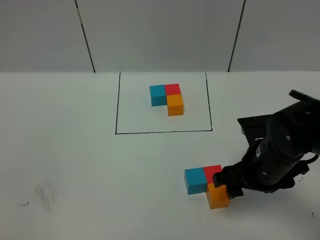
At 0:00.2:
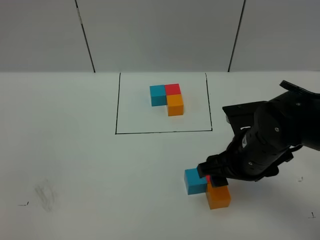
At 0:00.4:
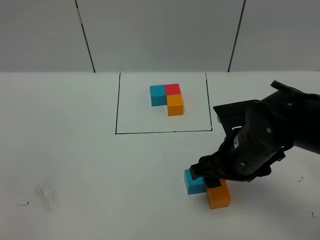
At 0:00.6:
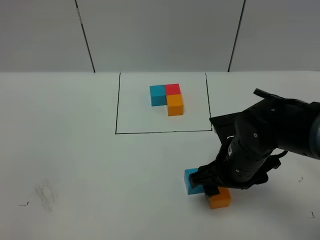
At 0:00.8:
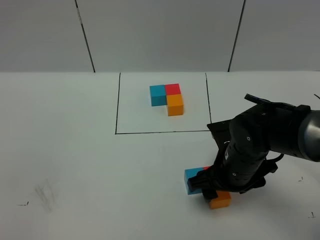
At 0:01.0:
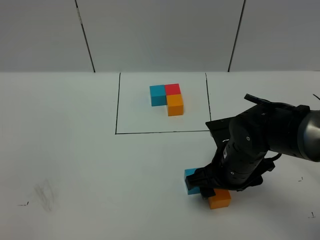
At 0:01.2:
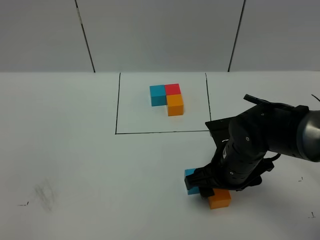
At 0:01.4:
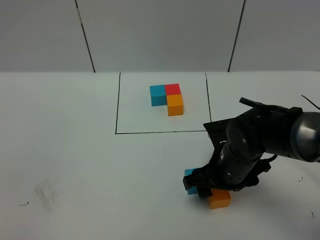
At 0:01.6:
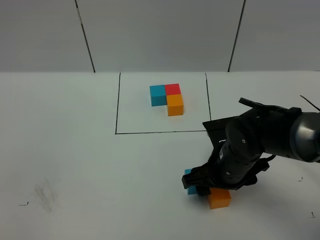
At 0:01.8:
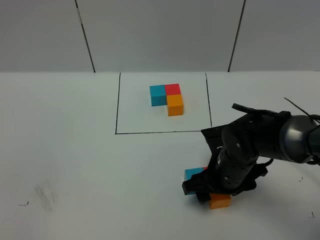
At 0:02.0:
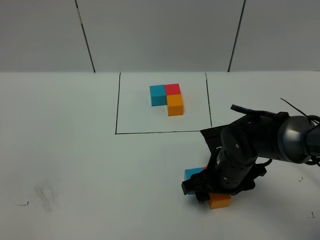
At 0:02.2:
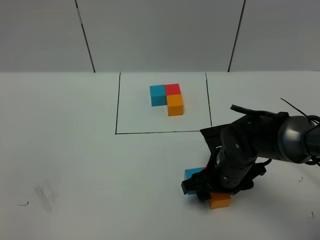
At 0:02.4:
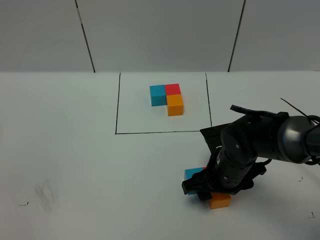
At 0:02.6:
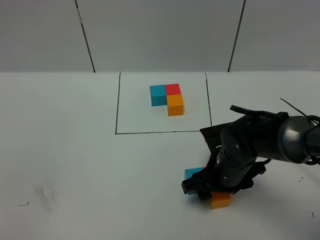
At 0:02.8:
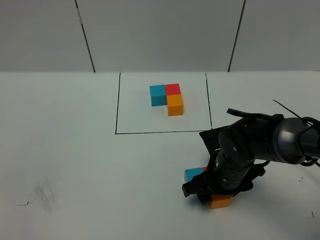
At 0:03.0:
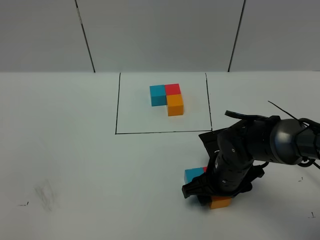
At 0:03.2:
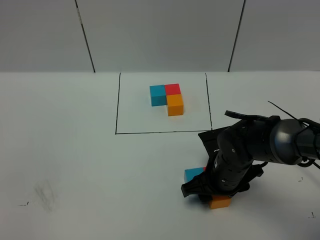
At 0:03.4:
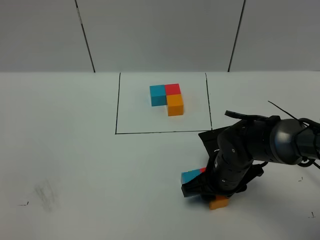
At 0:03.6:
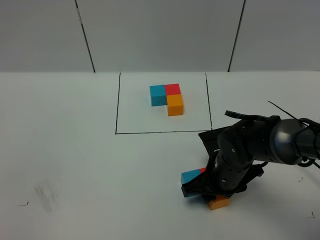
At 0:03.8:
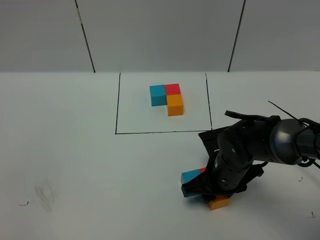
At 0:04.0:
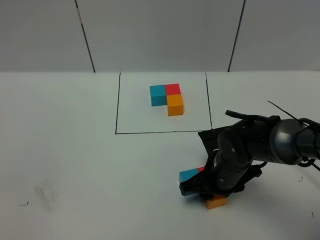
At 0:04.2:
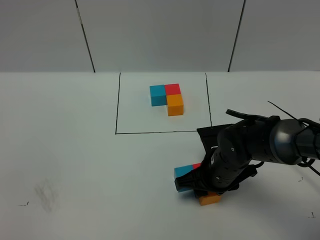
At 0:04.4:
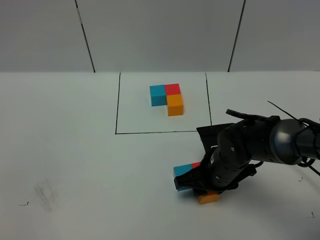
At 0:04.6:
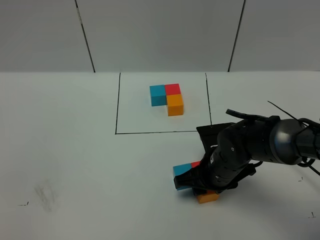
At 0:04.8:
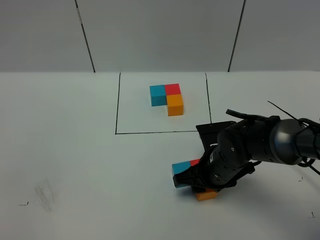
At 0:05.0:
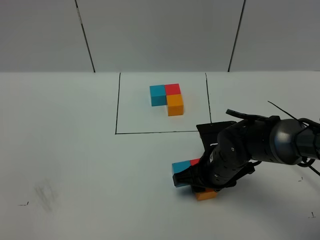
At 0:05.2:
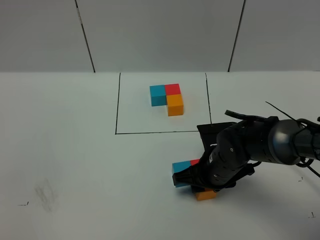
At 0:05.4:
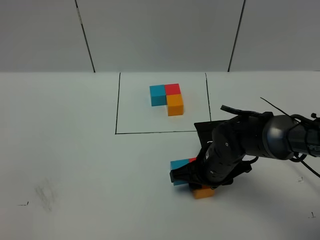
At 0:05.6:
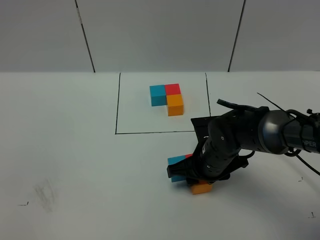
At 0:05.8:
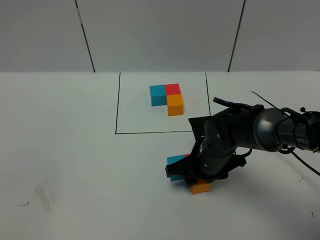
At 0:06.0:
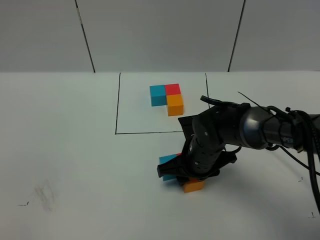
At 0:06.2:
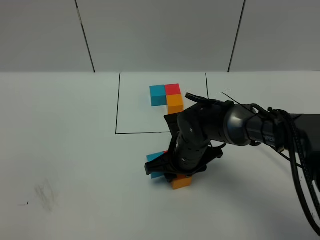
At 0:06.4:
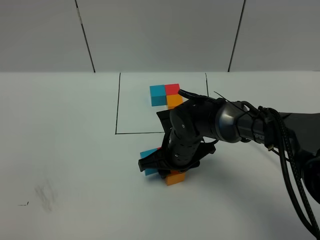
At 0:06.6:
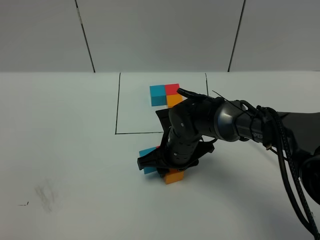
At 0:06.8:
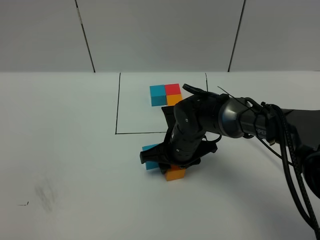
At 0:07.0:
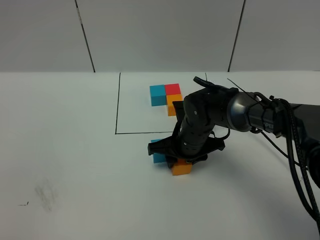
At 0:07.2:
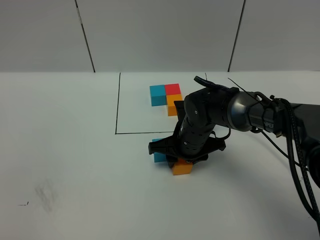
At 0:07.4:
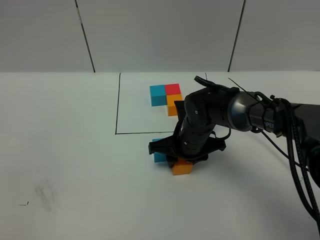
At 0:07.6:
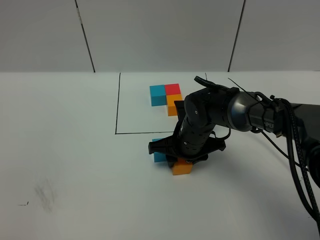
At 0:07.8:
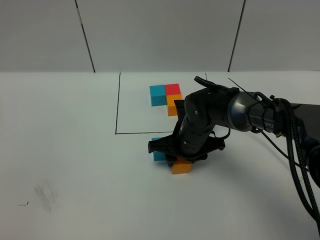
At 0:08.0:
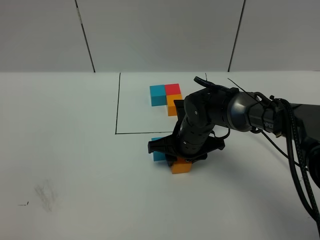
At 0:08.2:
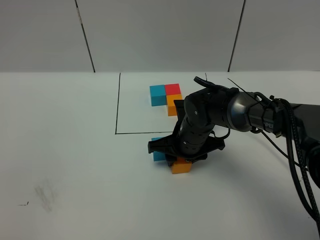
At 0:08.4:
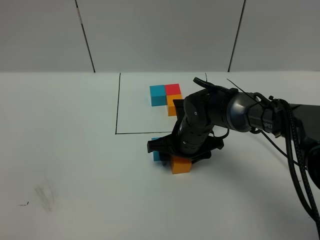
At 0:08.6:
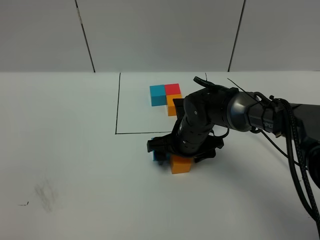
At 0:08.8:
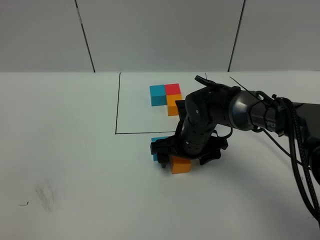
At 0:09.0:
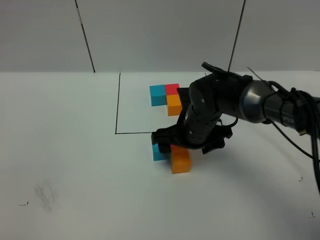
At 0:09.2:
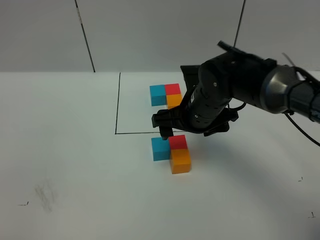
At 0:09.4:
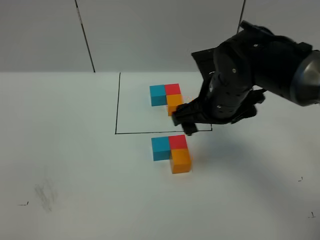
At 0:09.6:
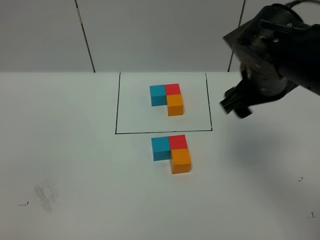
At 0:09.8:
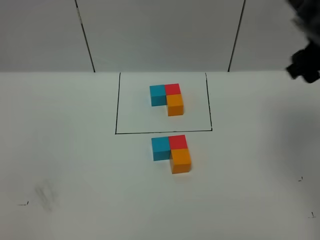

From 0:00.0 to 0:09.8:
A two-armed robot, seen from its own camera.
Task of the whole recording: According to the building block template in front, assemble the scattered blocks together.
Step, from 0:00.0 to 0:09.0: Adjust the pose of the building blocks.
From 0:00.0 to 0:01.4: The right gripper moves approximately 5 cm.
From 0:01.4 to 0:02.8: The grippers move only a little.
From 0:02.8 to 0:04.2: The right gripper closes its fingers.
From 0:04.2 to 0:05.6: There are only small adjustments of the grippers.
From 0:05.6 to 0:07.0: The right gripper shifts approximately 5 cm forward.
From 0:07.0 to 0:08.4: The right gripper opens its fingers.
From 0:08.4 to 0:09.8: The right gripper shifts about 30 cm upward and to the right, and opens up.
